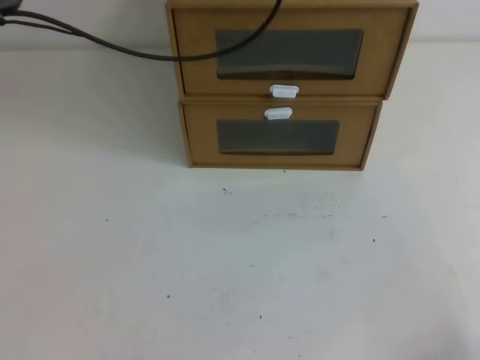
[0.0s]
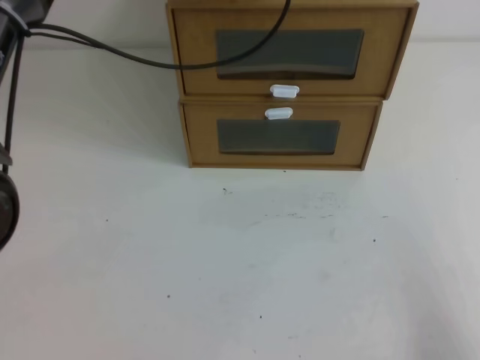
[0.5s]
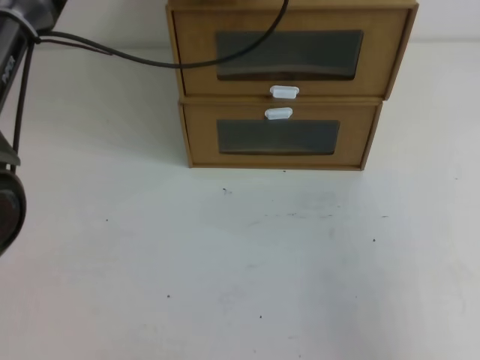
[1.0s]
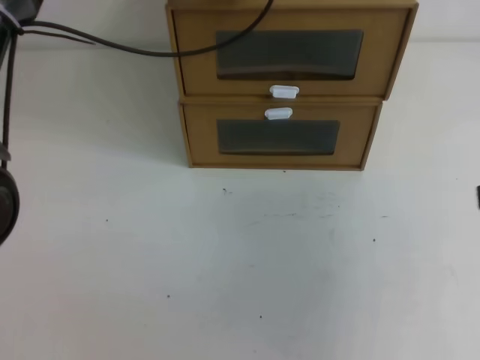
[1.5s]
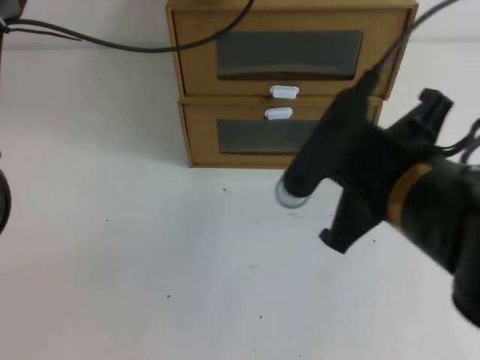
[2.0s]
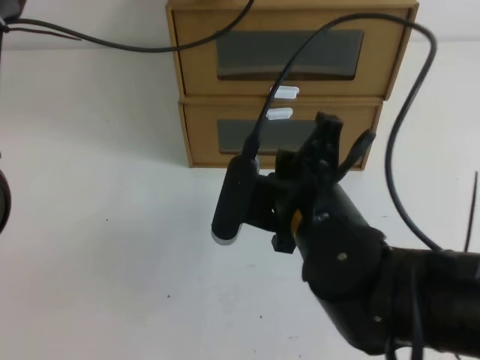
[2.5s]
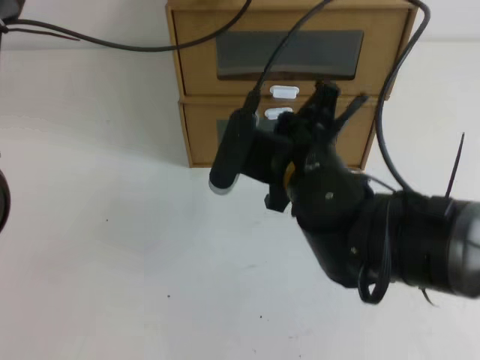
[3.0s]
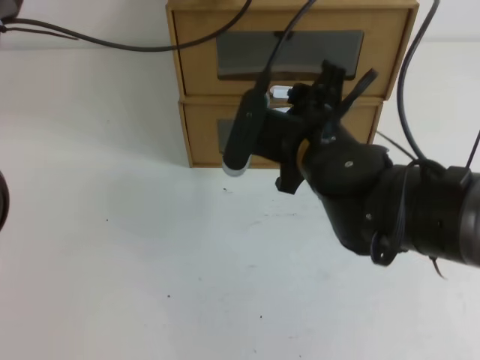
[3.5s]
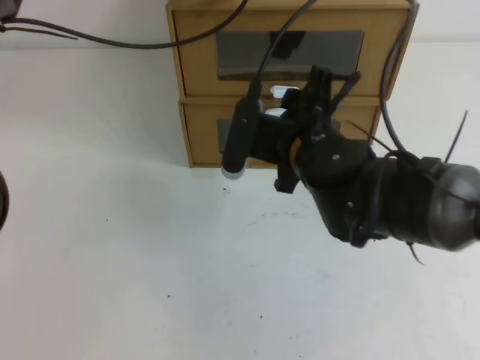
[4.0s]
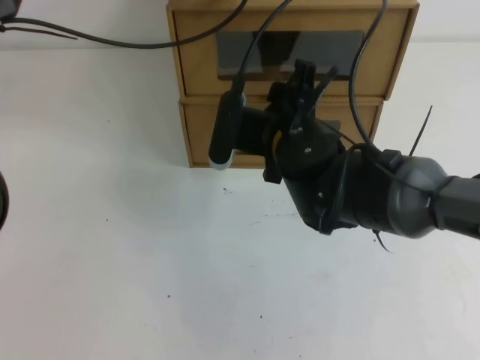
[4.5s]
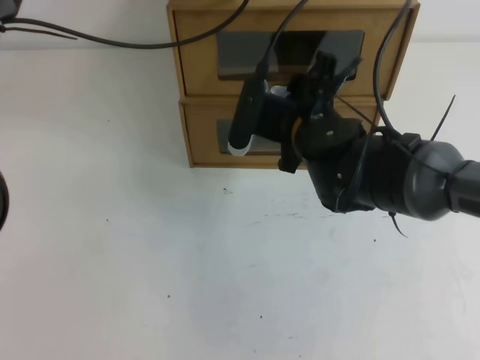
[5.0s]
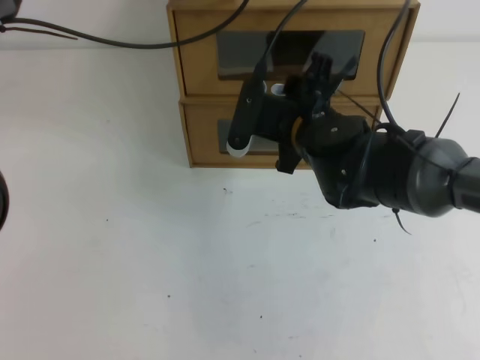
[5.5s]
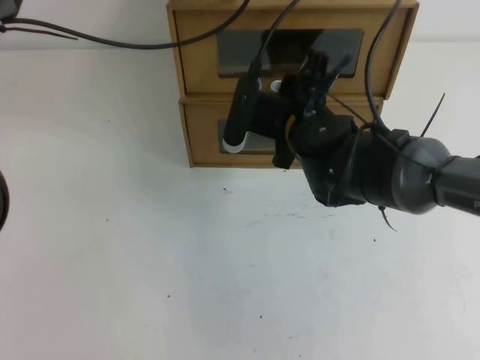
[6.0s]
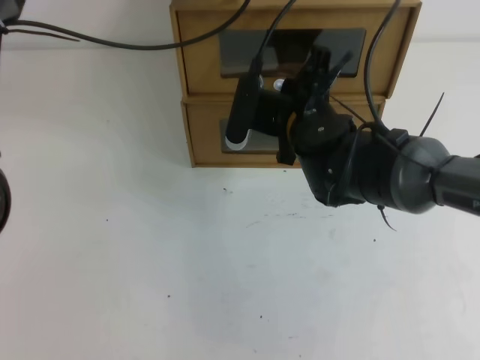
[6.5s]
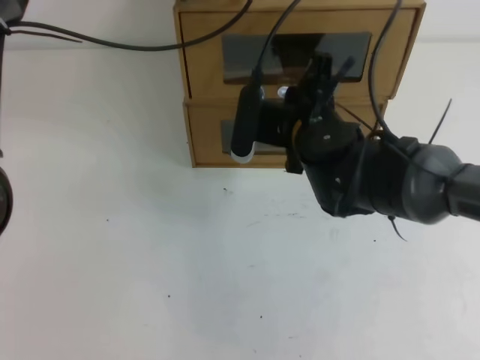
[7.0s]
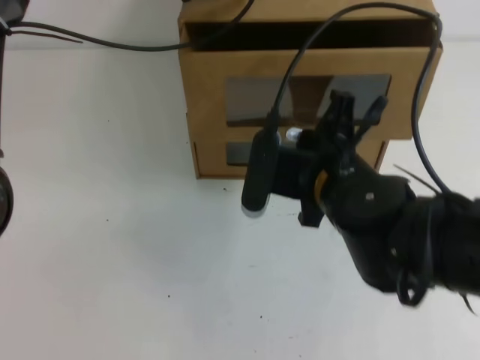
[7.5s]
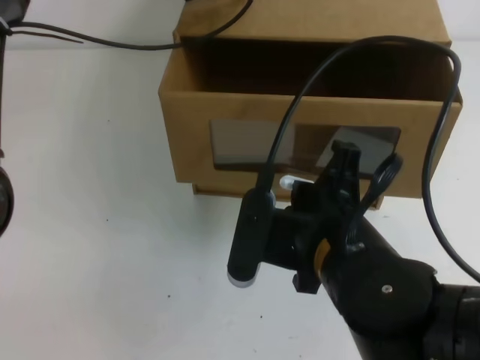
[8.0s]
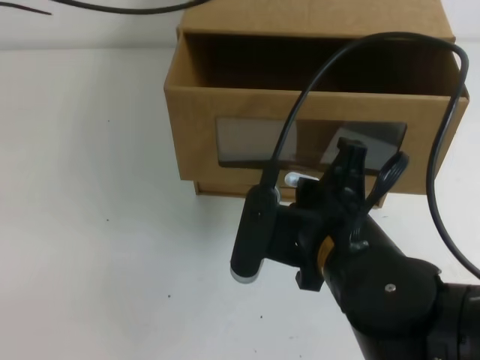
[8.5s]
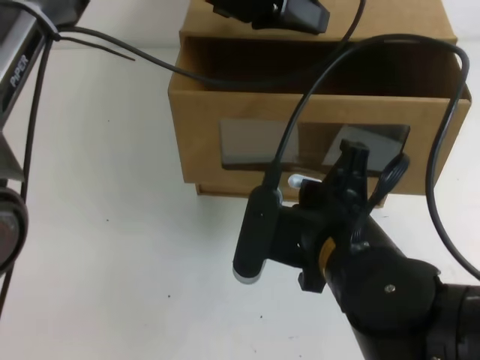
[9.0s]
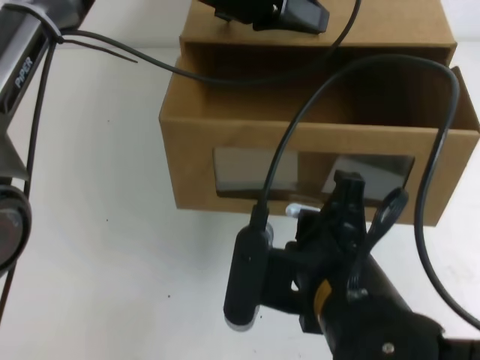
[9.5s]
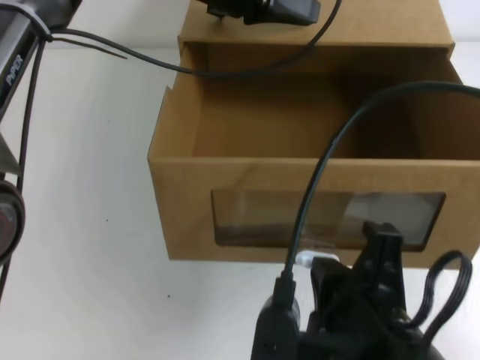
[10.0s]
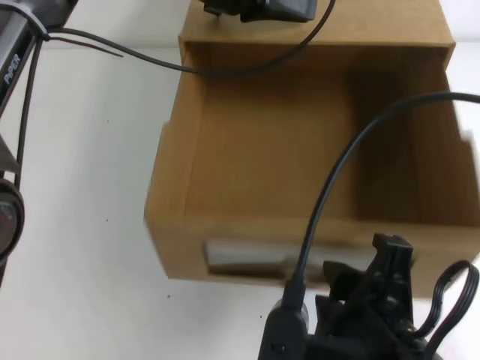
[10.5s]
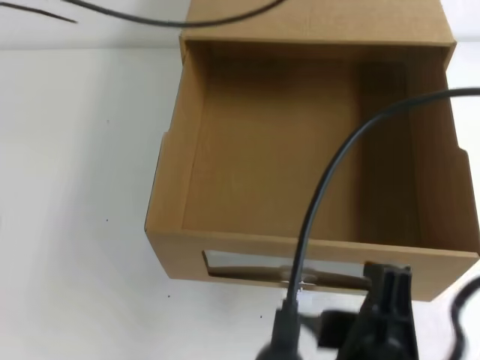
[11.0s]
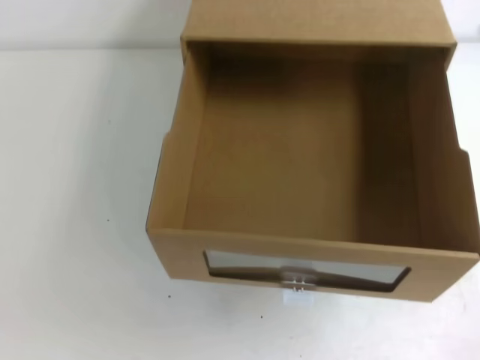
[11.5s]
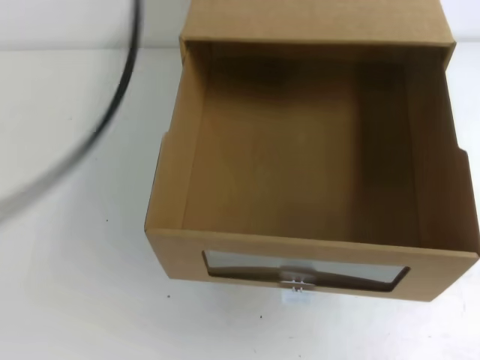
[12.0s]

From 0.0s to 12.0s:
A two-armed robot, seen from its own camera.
Task of the whole recording: open the shoebox on the table.
From 0.0s to 2.0s: The right gripper moves upward, to the left and forward, some 25 cm.
From 2.0s to 4.0s: The right gripper heads forward, to the left and downward, covering approximately 15 cm, and opens.
From 4.0s to 6.0s: The right gripper shifts roughly 5 cm forward.
From 6.0s to 8.0s: The right gripper moves backward, roughly 15 cm, and closes up.
From 8.0s to 10.0s: The right gripper heads backward, covering about 10 cm, while the left gripper is displaced to the right and backward by about 10 cm.
From 10.0s to 12.0s: The left gripper shifts approximately 30 cm backward, upward and to the left; the right gripper travels upward and to the right by approximately 30 cm, and opens, then closes again.

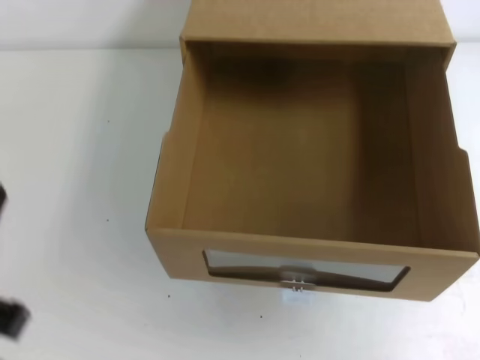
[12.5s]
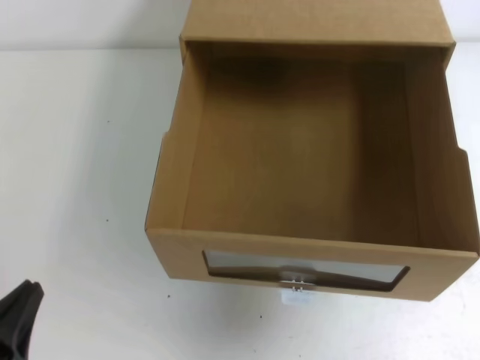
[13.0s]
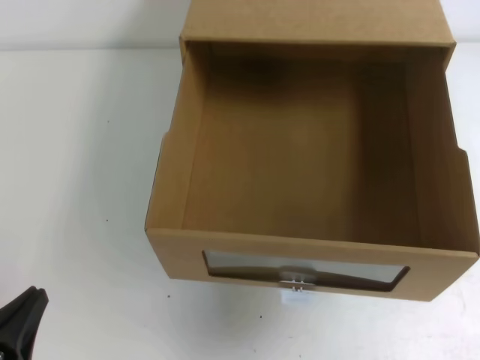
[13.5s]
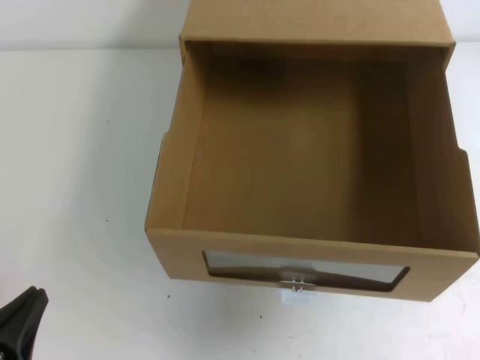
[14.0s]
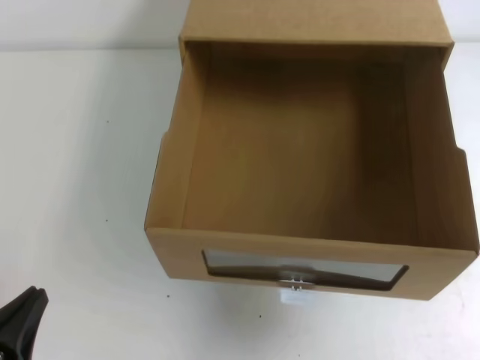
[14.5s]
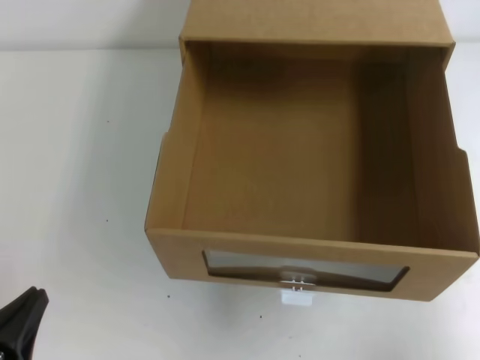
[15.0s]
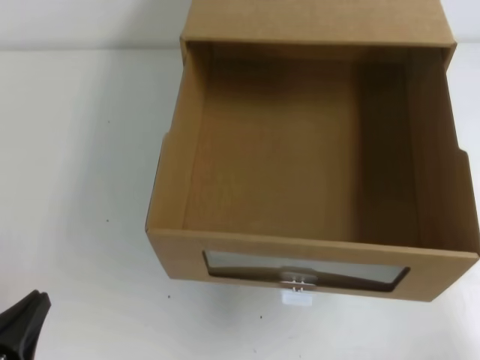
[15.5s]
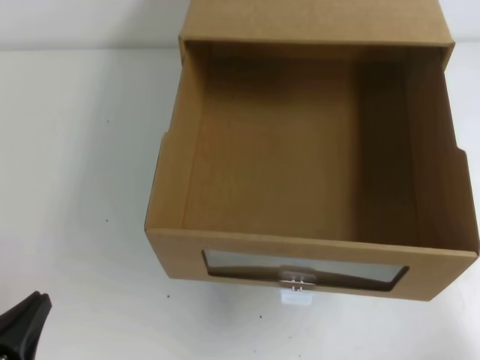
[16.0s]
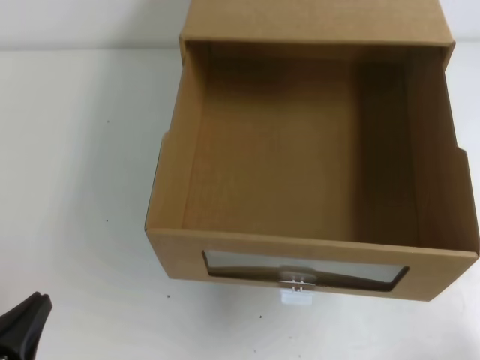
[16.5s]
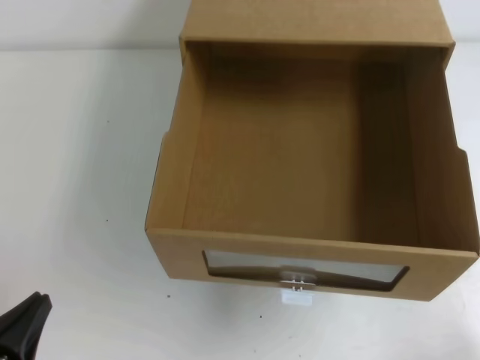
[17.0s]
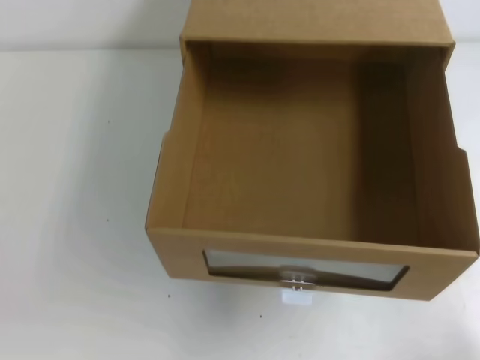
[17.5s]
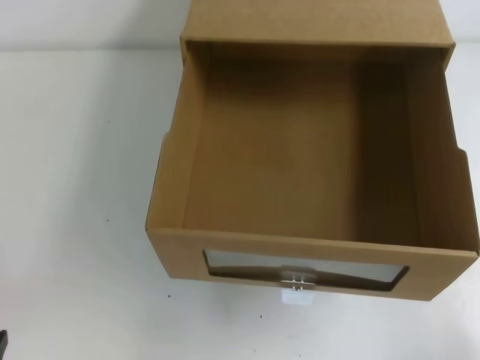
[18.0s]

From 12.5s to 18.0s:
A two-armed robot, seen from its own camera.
Task of the whole recording: open the shoebox on the table.
Step, from 12.5s to 18.0s: Open the shoe box.
From 12.5s to 14.5s: The right gripper is displaced downward by about 5 cm, while the left gripper shifts approximately 15 cm downward.
From 14.5s to 16.0s: The right gripper goes some 25 cm downward.
From 16.0s to 18.0s: The grippers make only small movements.

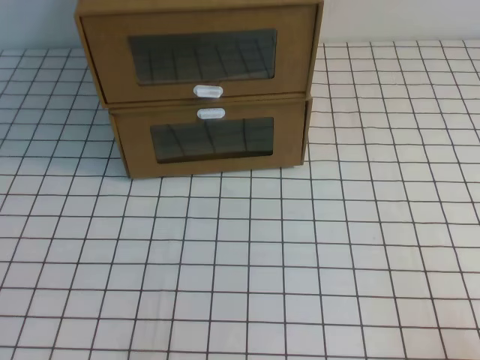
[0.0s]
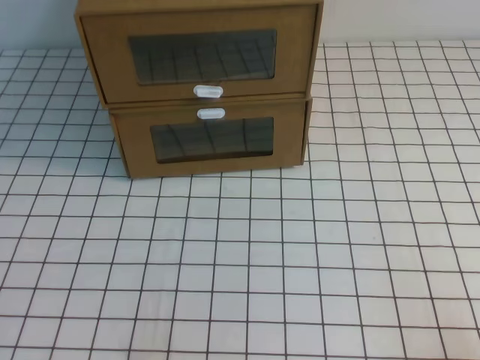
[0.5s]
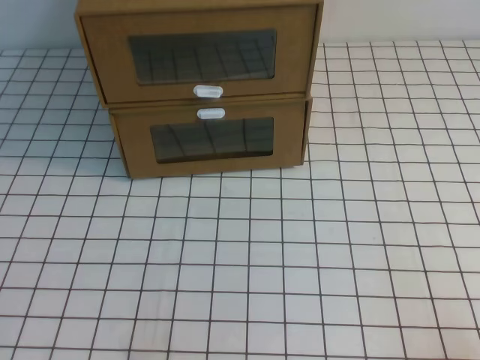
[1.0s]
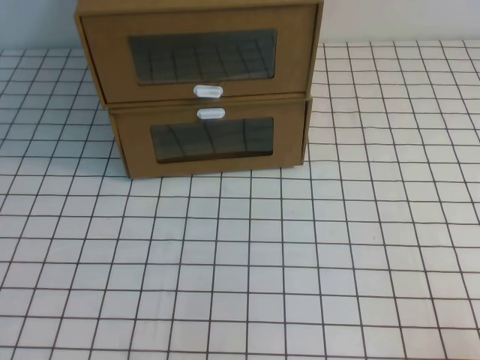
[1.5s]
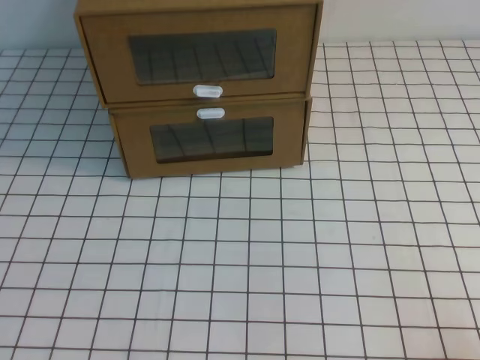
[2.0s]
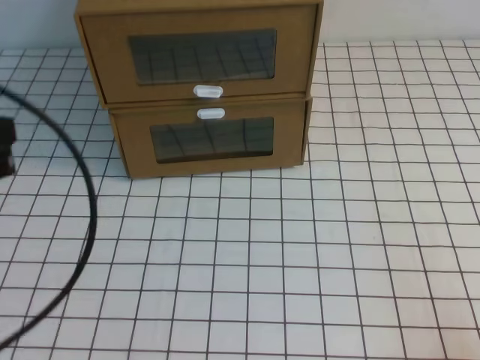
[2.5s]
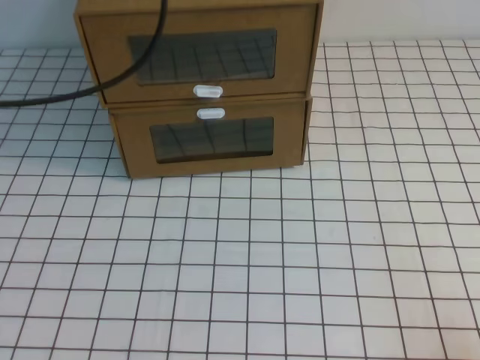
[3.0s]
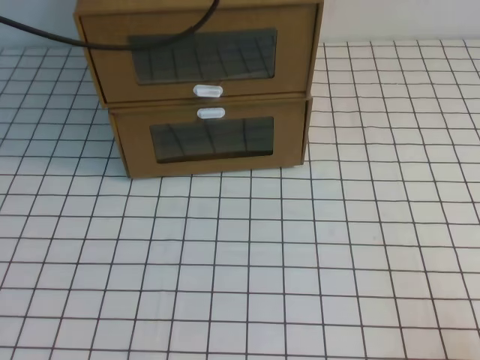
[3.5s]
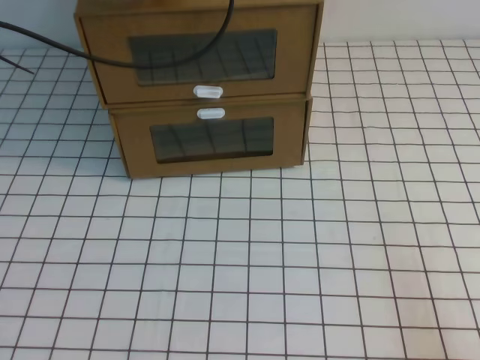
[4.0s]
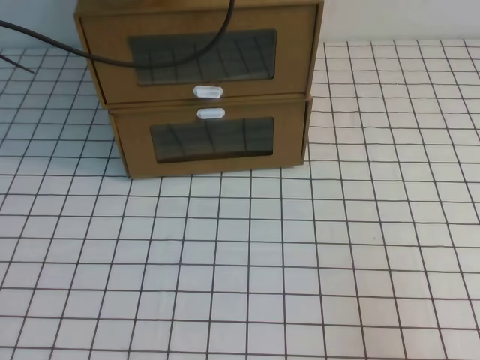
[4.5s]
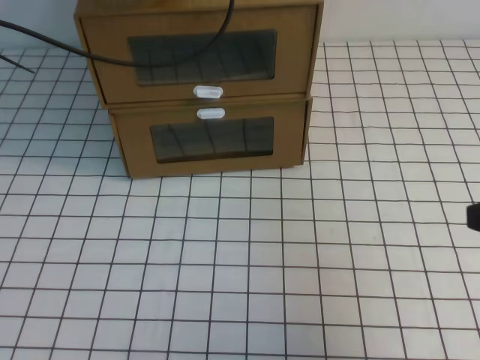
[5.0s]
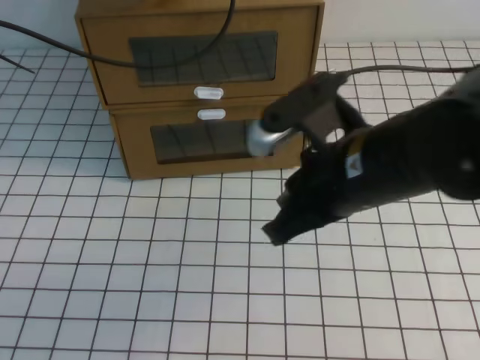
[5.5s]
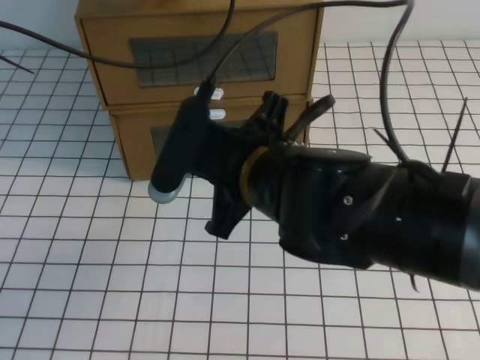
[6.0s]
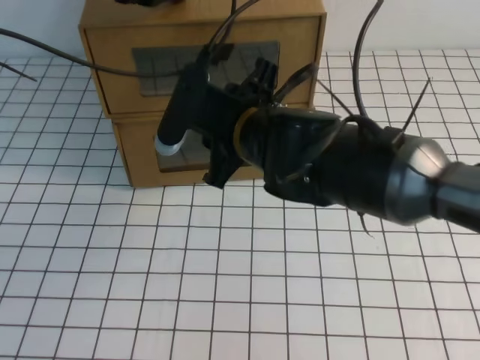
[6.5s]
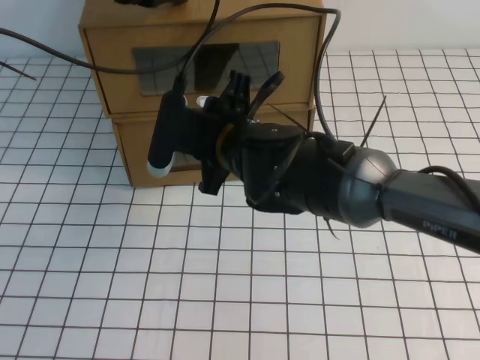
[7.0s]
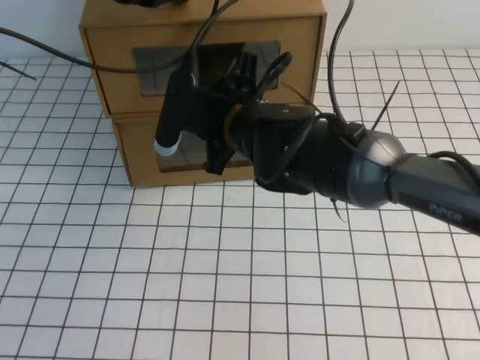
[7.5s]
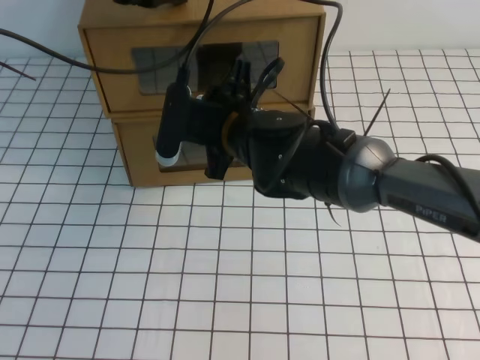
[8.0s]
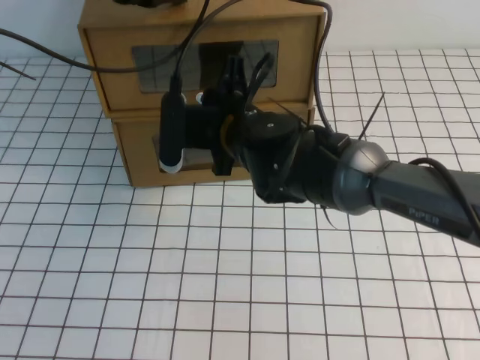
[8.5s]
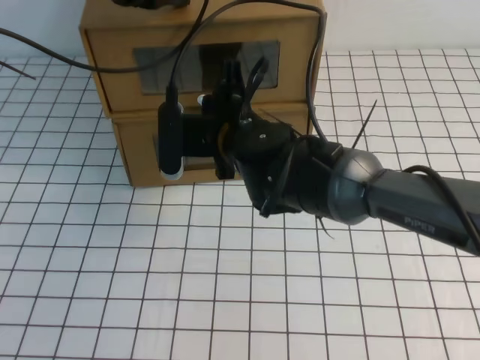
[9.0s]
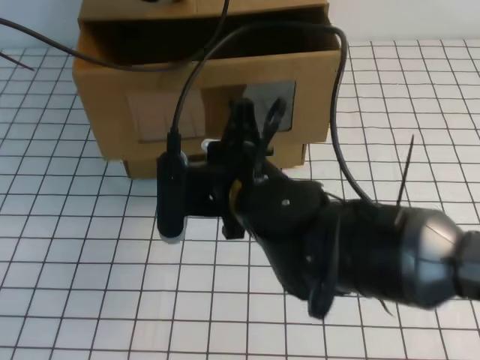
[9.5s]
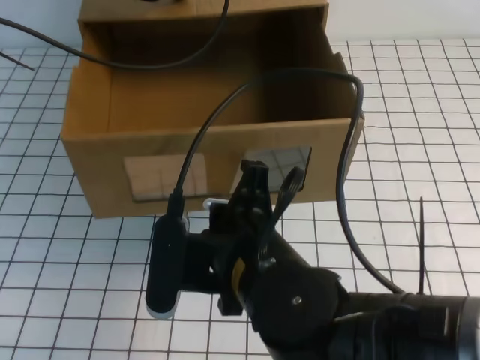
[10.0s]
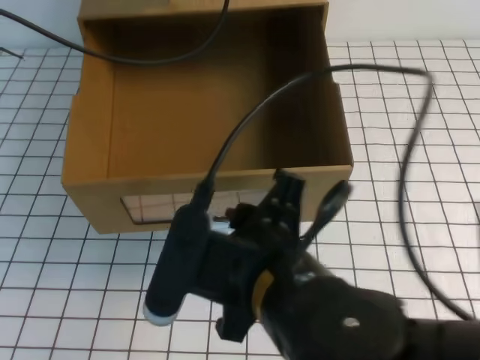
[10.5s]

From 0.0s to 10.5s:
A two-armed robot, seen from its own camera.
Task of the whole recording: open the shoebox on the white tablecloth.
From 2.0s to 4.0s: The left gripper travels forward and upward by some 40 cm.
From 4.0s to 6.5s: The right gripper heads to the left and forward, covering about 40 cm, and opens.
From 6.5s to 8.5s: The right gripper is displaced forward by roughly 5 cm, and closes up.
From 8.5s to 10.5s: The right gripper is displaced backward by approximately 20 cm, and closes and opens again.
